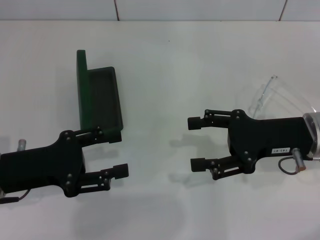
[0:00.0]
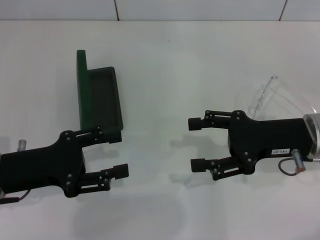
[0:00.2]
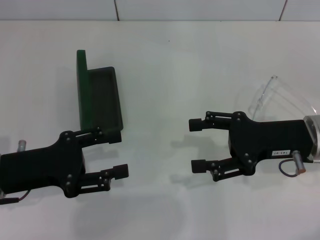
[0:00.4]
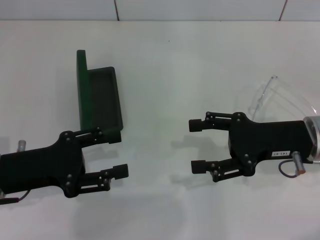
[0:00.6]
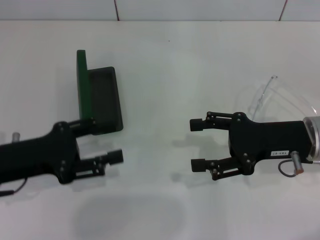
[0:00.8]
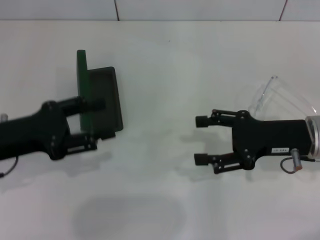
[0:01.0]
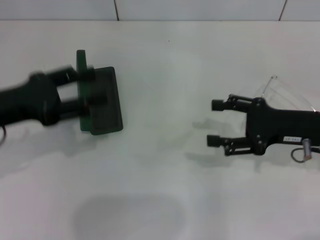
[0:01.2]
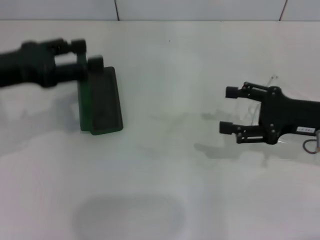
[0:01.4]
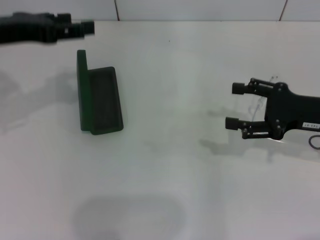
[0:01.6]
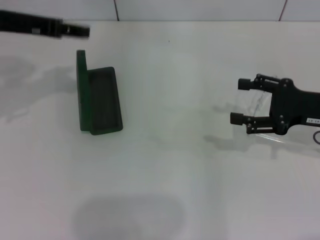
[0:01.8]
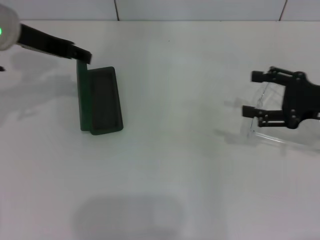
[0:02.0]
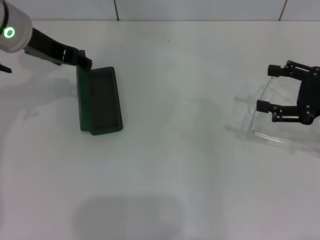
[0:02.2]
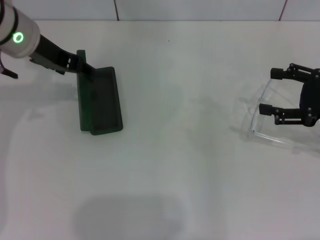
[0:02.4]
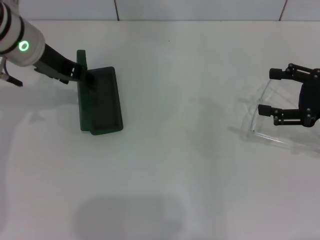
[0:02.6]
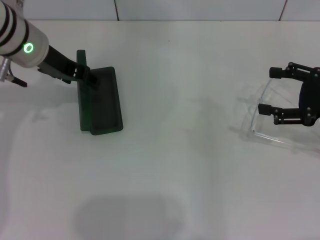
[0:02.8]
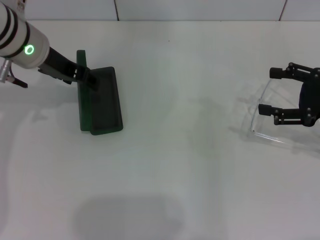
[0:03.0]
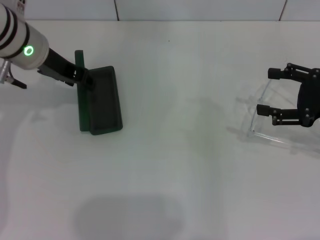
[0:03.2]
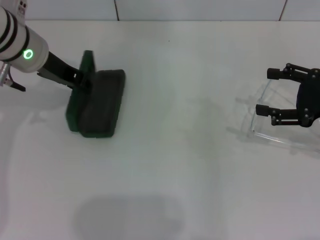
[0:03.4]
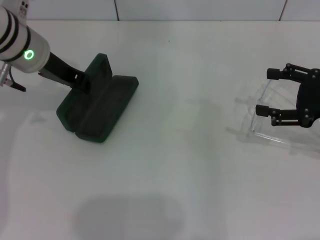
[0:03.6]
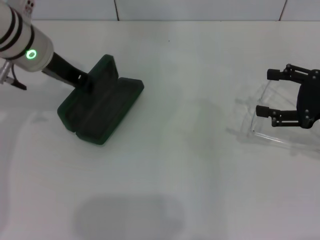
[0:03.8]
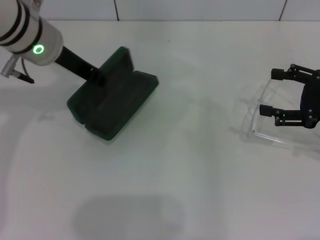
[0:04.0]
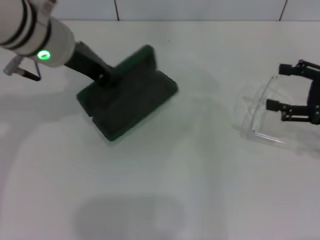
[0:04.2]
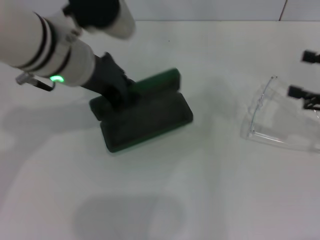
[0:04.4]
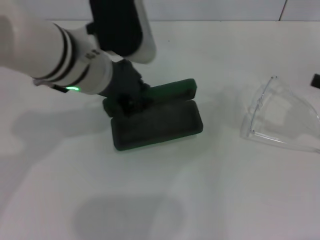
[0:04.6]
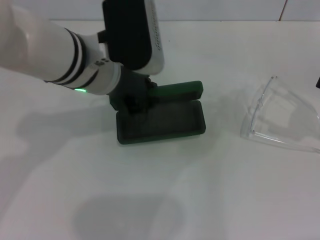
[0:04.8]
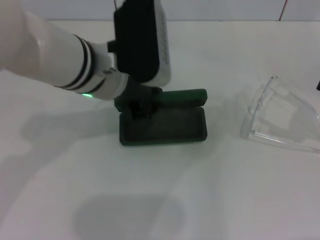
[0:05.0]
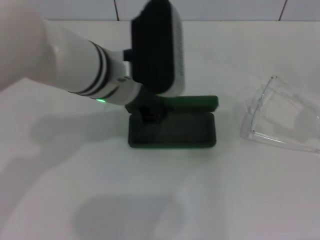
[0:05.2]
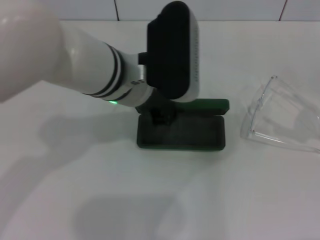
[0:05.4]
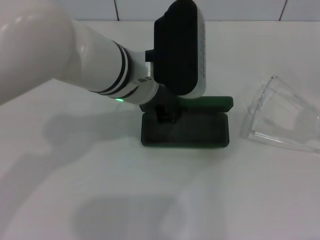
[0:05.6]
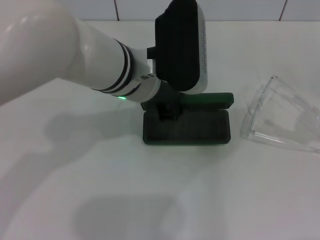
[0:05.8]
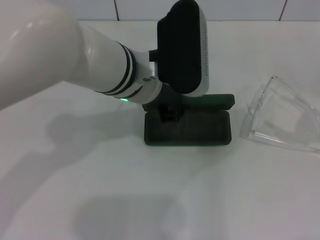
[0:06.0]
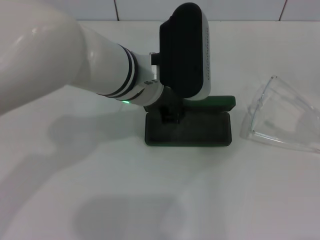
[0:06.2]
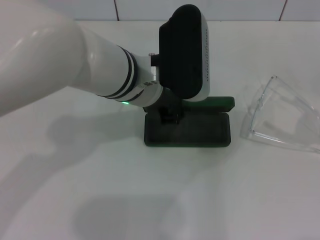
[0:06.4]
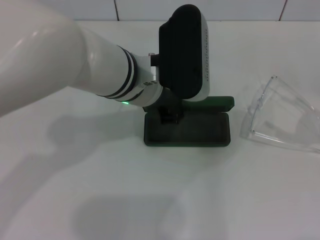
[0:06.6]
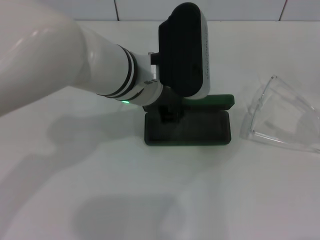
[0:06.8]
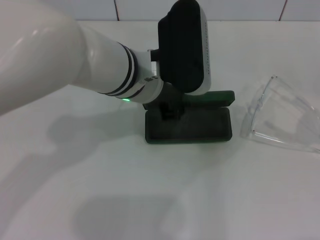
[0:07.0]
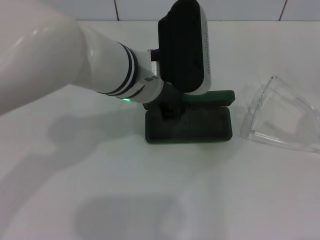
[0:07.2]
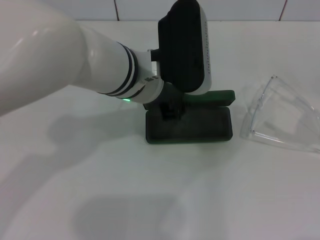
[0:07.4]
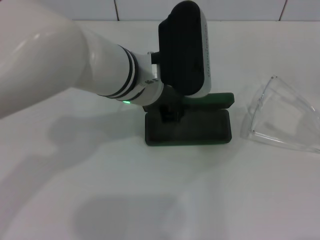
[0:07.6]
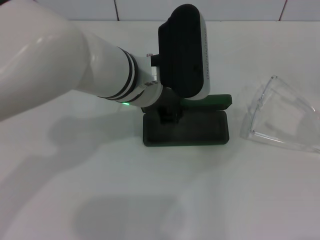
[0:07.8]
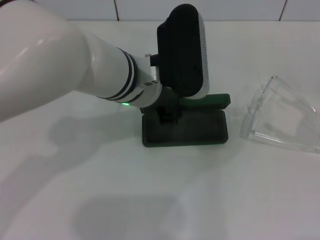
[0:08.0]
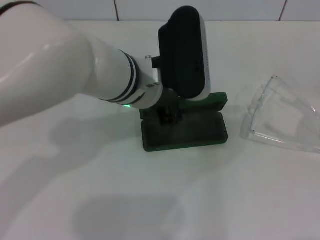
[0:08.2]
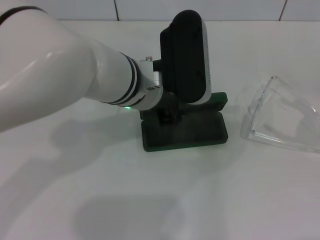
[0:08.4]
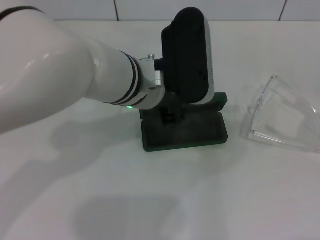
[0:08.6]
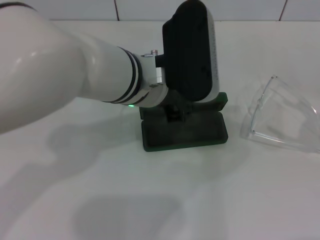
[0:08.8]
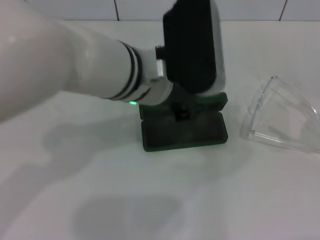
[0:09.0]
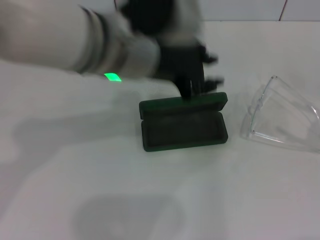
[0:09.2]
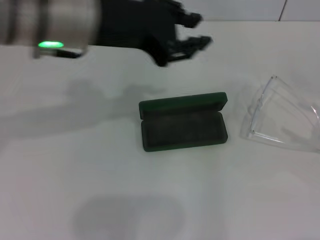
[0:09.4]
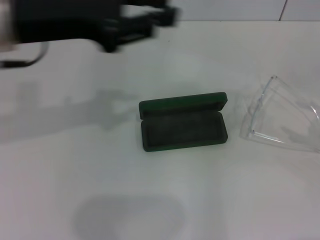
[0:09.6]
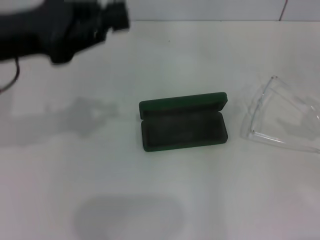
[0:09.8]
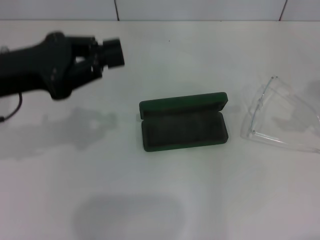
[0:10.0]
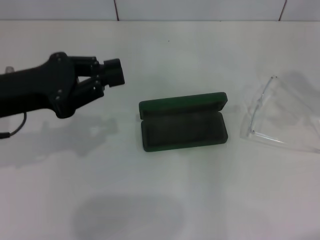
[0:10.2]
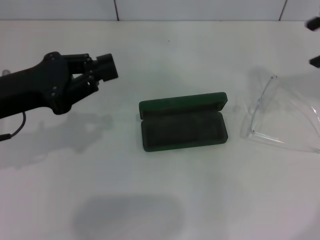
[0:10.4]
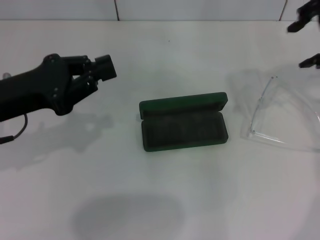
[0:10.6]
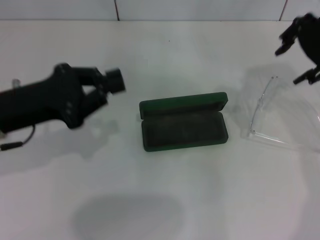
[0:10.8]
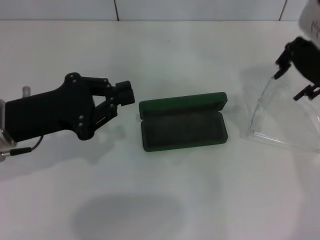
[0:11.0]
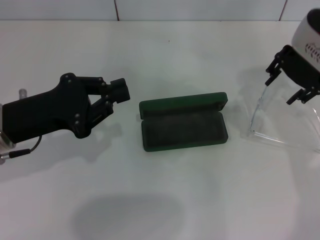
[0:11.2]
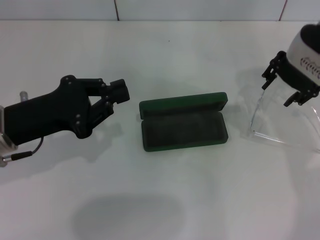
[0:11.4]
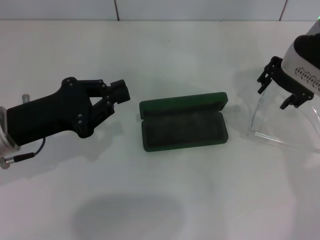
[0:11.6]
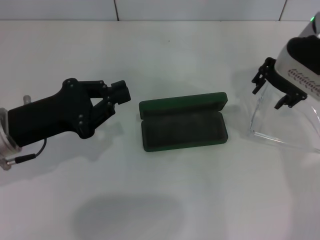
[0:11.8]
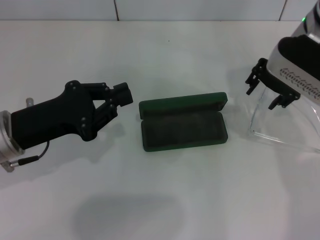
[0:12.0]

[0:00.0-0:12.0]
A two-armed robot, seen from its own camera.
Step, 0:00.0 to 0:03.6: Grab the glasses case with your left hand.
Step, 0:03.8 to 0:08.6: Place the glasses case in the center of the table with your left hand.
0:00.0 to 0:01.6: The right gripper goes roughly 5 cm to the right; the left gripper goes about 15 cm upward and forward.
0:01.6 to 0:03.0: The left gripper heads to the right and forward, covering about 10 cm.
0:03.0 to 0:04.4: The left gripper goes roughly 10 cm to the right and backward, and closes up.
0:04.4 to 0:06.0: The left gripper is displaced to the right by about 5 cm.
0:06.0 to 0:07.6: The two grippers keep their place.
0:07.6 to 0:09.0: The grippers stay close to where they were, moving slightly.
0:09.0 to 0:10.4: The right gripper moves upward, forward and to the left, about 25 cm. Meanwhile the left gripper goes roughly 20 cm to the left.
0:10.4 to 0:12.0: The right gripper heads downward and to the left, covering approximately 15 cm. The left gripper shifts by roughly 5 cm.

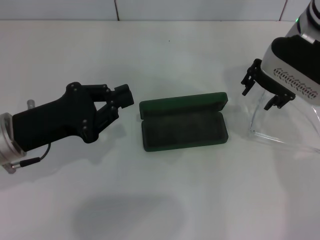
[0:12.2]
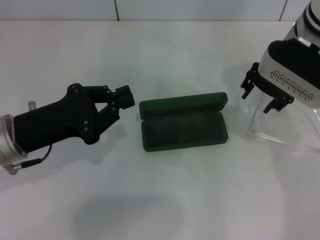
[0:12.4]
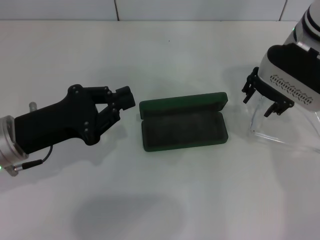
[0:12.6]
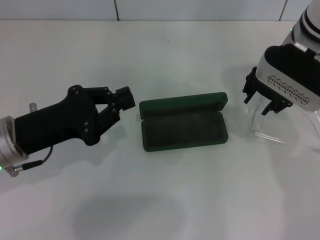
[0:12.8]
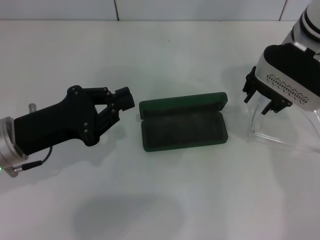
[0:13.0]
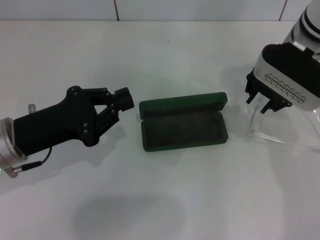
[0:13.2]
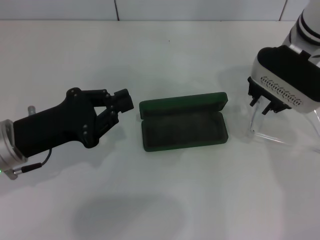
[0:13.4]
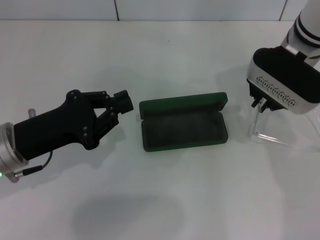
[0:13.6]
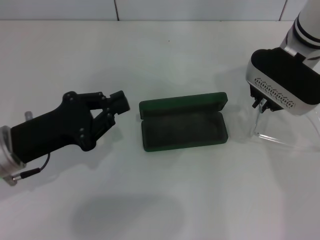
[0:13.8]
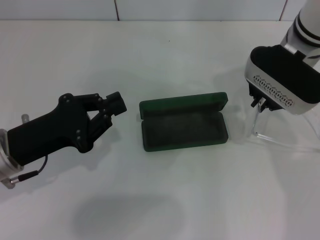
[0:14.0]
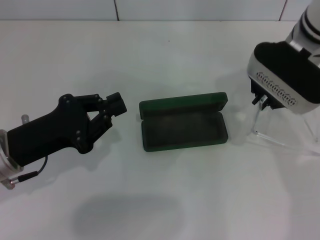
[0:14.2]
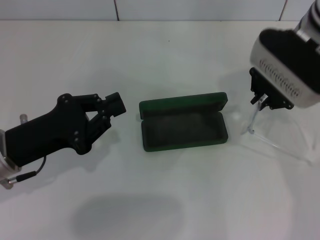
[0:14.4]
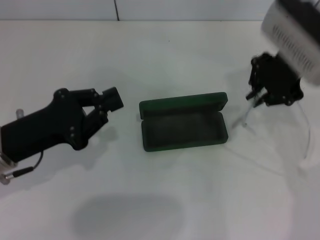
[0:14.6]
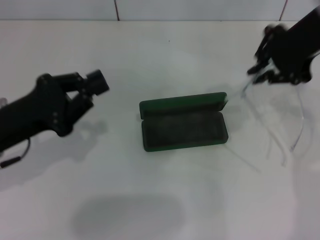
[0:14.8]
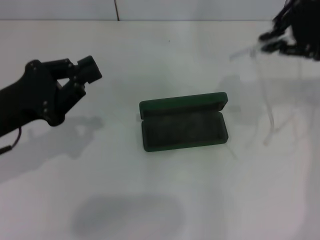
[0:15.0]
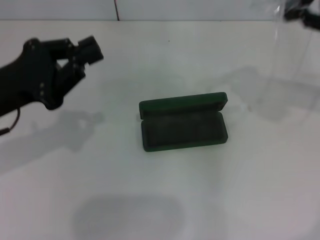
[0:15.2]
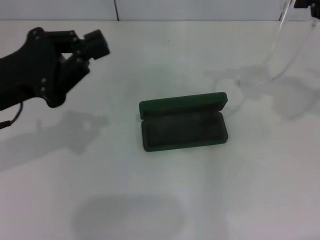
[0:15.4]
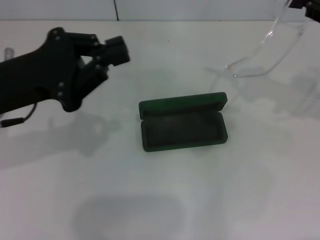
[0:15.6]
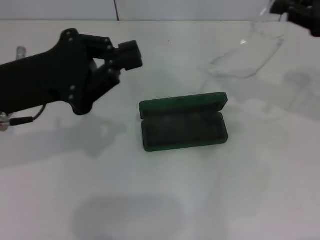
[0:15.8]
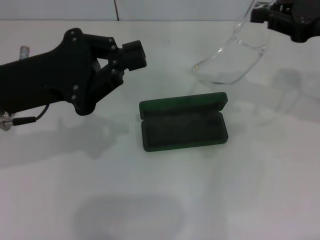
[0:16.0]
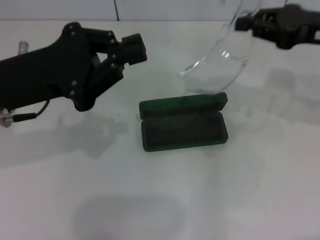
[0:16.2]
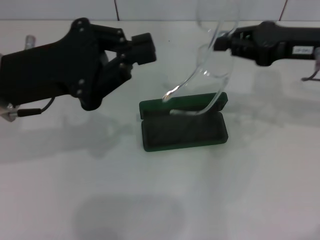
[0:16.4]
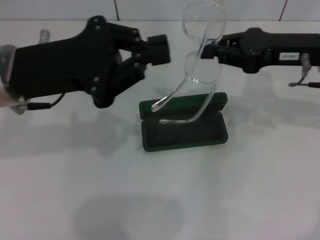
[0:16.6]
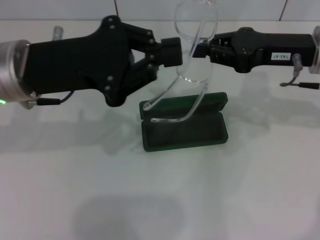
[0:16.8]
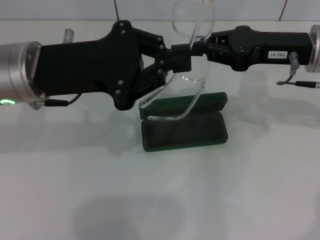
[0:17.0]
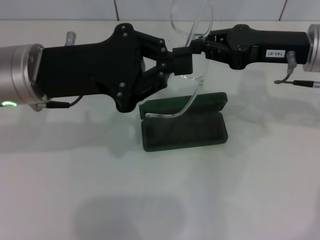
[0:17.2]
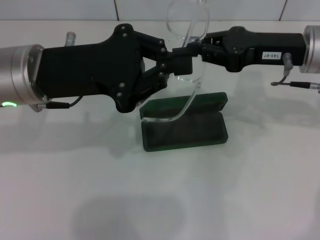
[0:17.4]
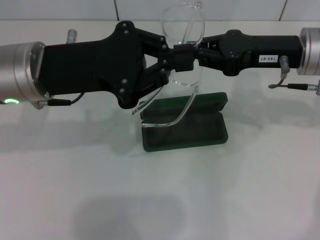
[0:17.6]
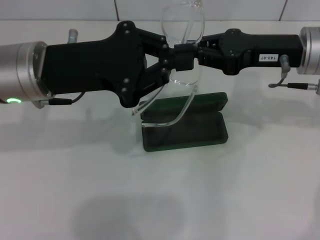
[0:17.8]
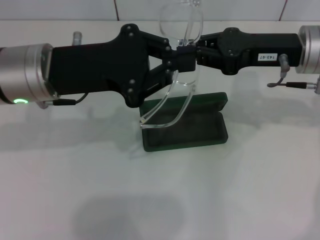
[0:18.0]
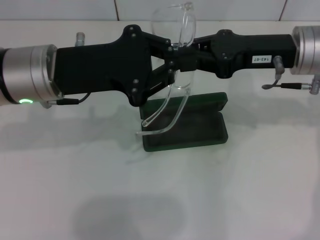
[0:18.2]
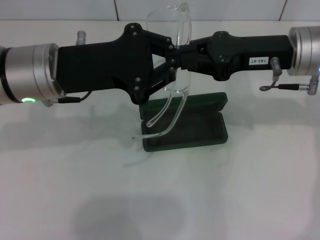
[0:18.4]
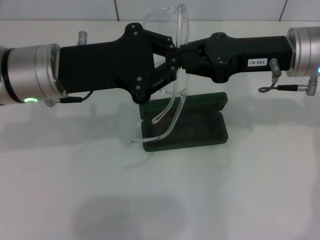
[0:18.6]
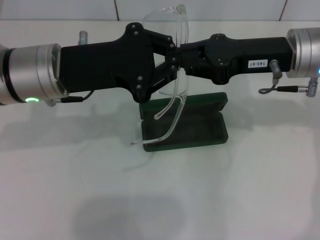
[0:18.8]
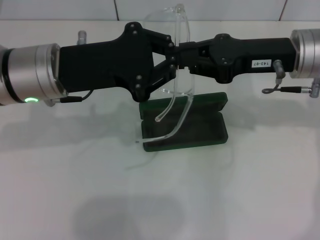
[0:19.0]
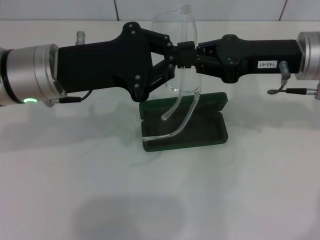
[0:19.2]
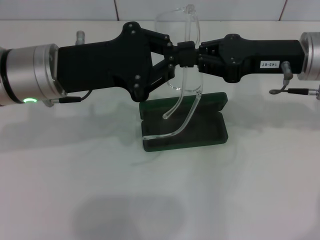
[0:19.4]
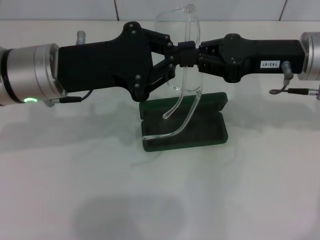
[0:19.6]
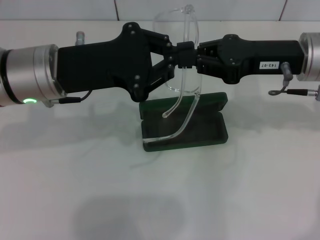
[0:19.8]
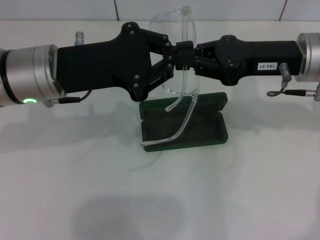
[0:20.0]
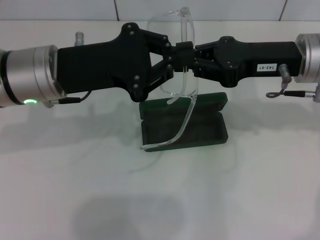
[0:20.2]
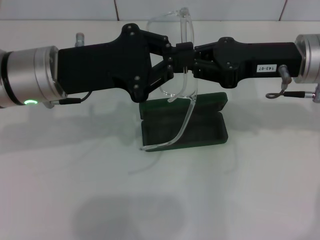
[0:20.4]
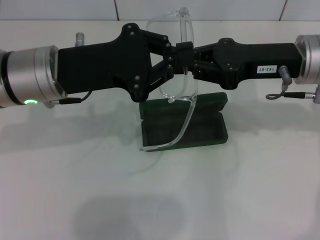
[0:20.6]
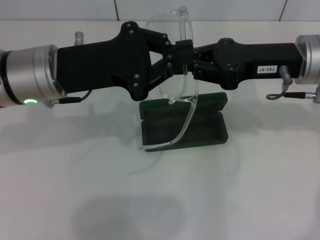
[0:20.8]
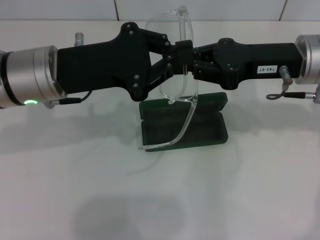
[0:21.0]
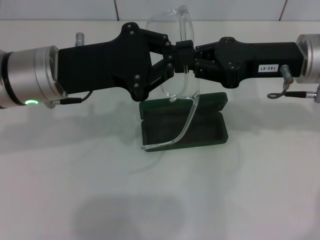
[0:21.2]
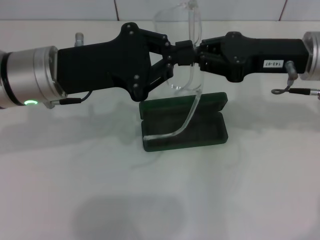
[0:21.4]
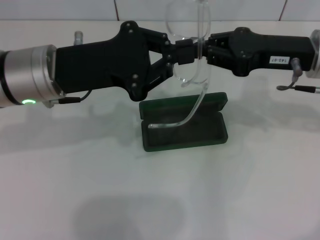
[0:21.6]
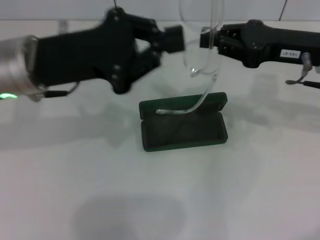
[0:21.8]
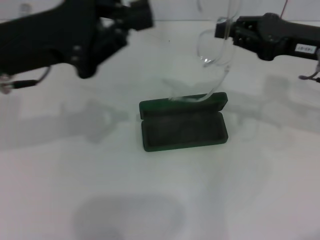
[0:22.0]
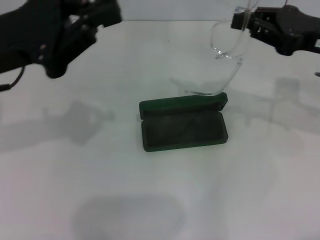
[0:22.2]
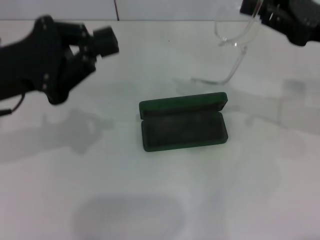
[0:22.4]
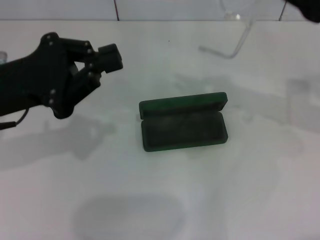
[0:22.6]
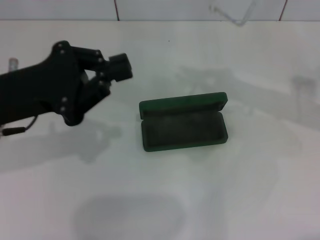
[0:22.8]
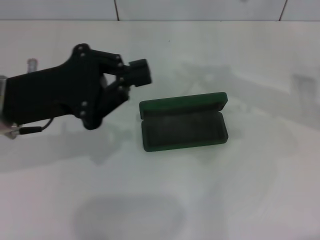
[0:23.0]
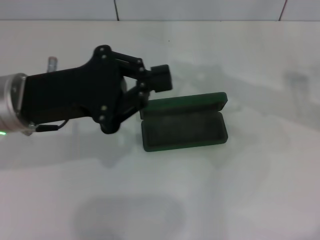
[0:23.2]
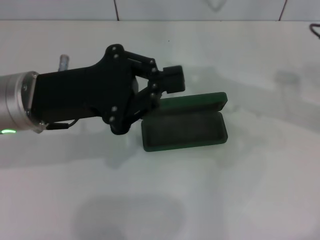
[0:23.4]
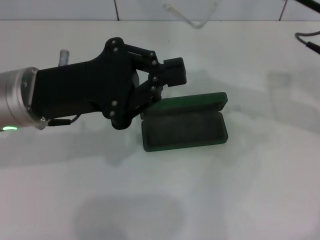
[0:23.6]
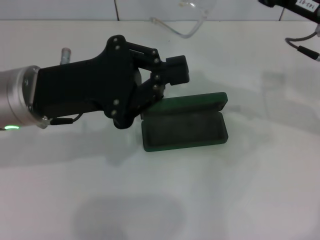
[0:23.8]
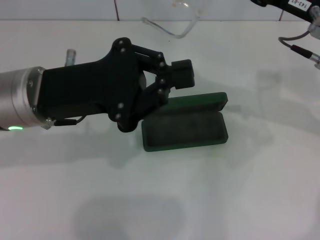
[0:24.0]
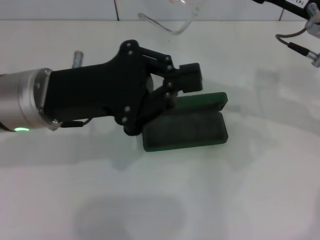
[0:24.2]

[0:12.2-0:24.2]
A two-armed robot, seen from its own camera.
Step, 0:12.2 to 0:14.2: Grab the eyeglass frame with your right hand.
0:12.2 to 0:13.8: The right gripper closes up.
0:13.8 to 0:15.2: The left gripper heads upward, covering some 5 cm, while the right gripper goes about 20 cm to the right, upward and backward.
0:15.2 to 0:16.6: The right gripper shifts approximately 10 cm downward and to the left. Meanwhile the left gripper travels to the right by roughly 5 cm.
0:16.6 to 0:18.2: The grippers move only a little.
0:18.2 to 0:21.2: Both grippers stay put.
0:21.2 to 0:22.6: The right gripper travels to the right by roughly 5 cm. Meanwhile the left gripper travels to the left by about 5 cm.
0:22.6 to 0:24.2: The left gripper shifts roughly 5 cm to the right. The right gripper travels to the left by approximately 5 cm.
